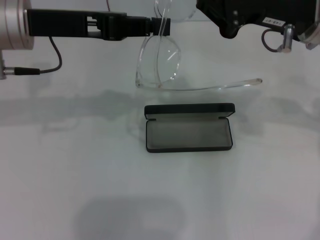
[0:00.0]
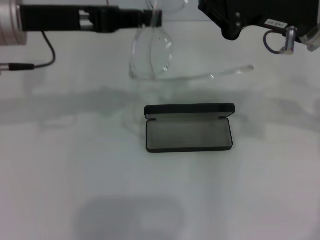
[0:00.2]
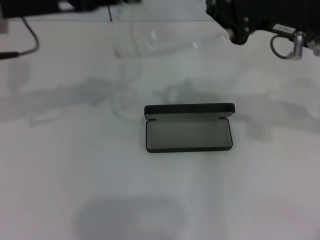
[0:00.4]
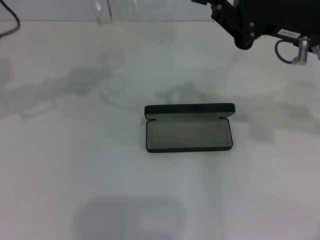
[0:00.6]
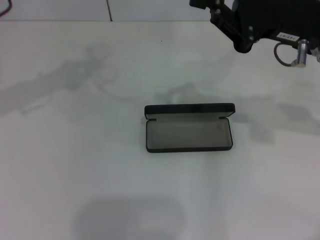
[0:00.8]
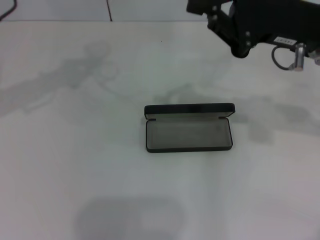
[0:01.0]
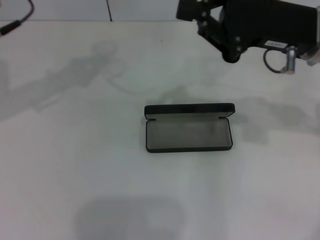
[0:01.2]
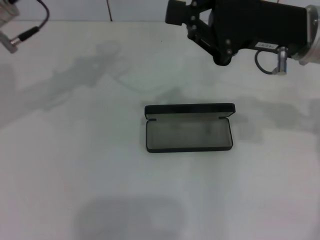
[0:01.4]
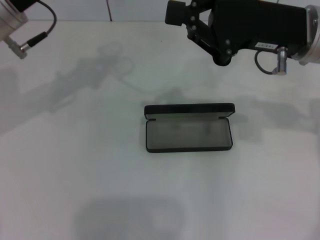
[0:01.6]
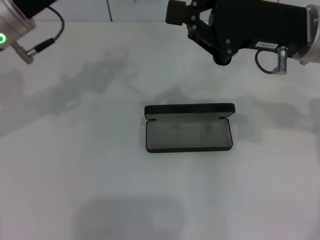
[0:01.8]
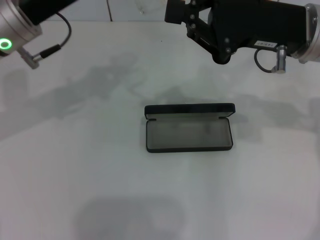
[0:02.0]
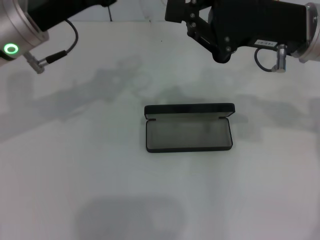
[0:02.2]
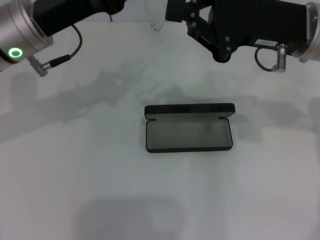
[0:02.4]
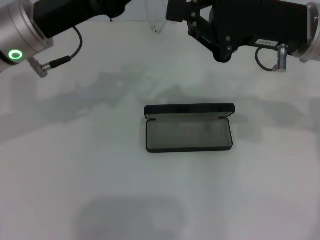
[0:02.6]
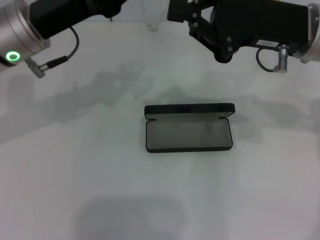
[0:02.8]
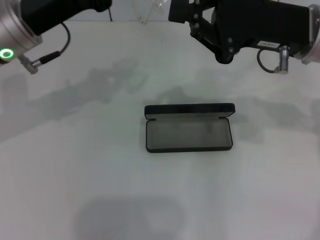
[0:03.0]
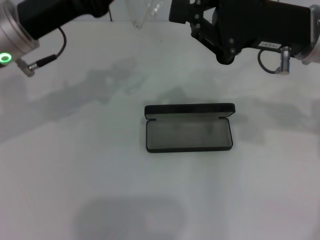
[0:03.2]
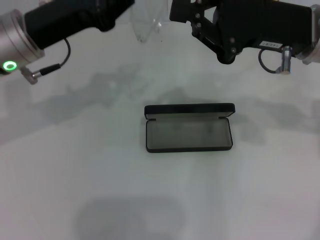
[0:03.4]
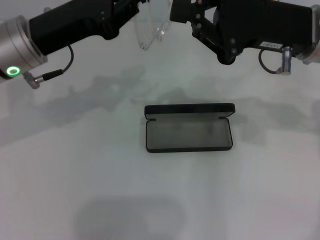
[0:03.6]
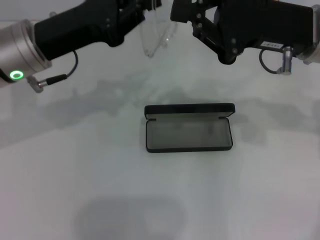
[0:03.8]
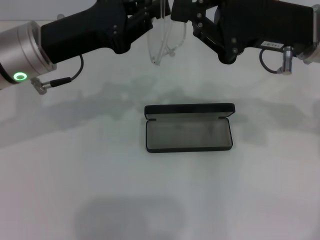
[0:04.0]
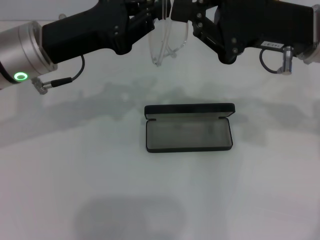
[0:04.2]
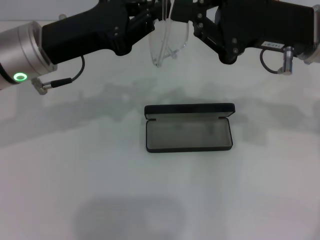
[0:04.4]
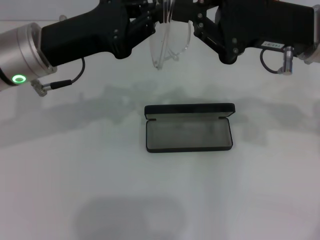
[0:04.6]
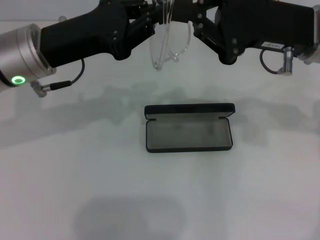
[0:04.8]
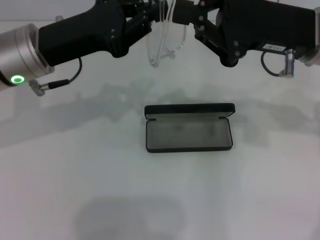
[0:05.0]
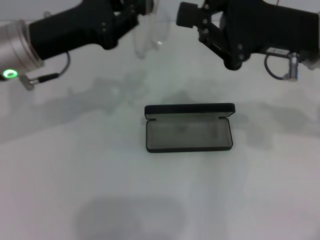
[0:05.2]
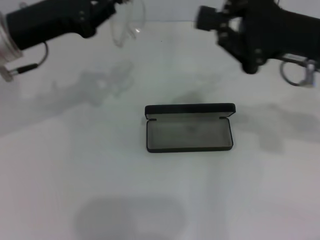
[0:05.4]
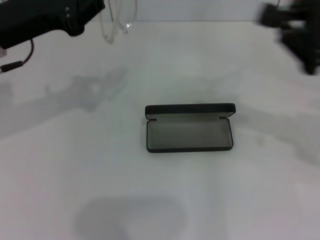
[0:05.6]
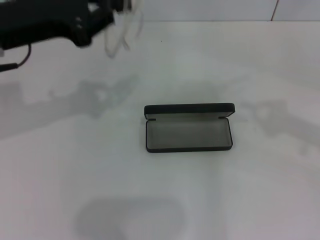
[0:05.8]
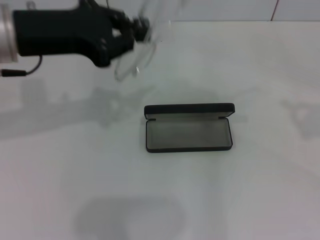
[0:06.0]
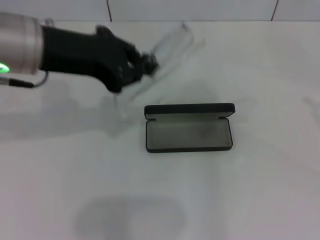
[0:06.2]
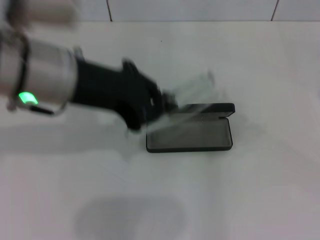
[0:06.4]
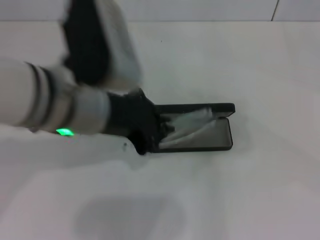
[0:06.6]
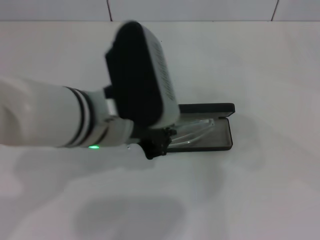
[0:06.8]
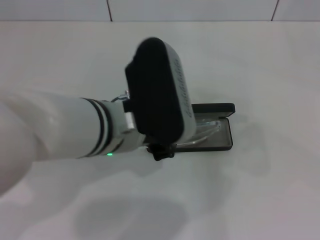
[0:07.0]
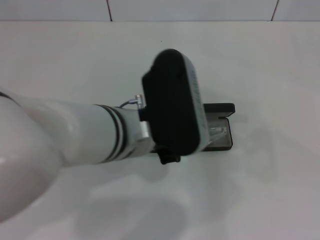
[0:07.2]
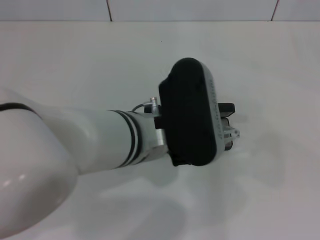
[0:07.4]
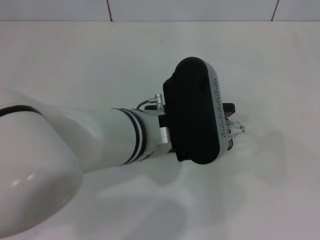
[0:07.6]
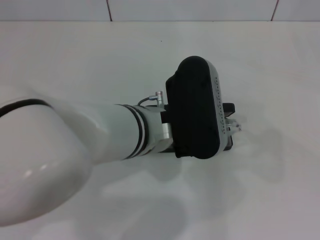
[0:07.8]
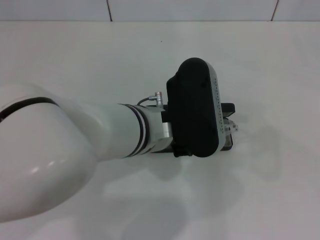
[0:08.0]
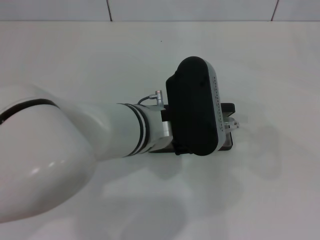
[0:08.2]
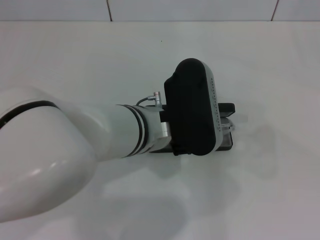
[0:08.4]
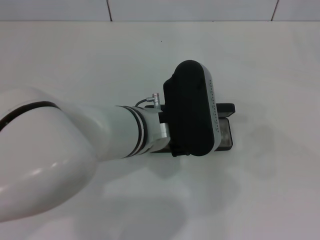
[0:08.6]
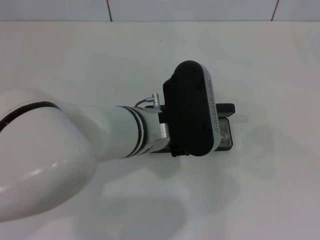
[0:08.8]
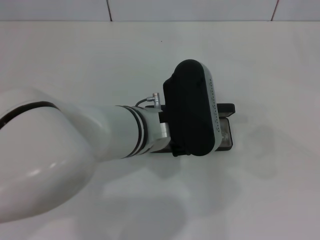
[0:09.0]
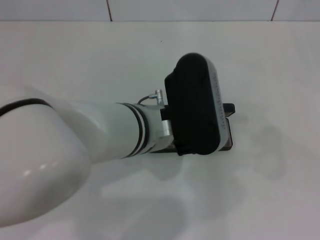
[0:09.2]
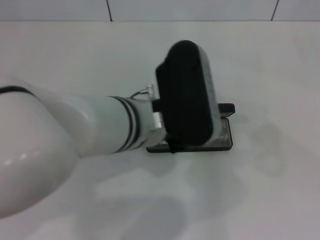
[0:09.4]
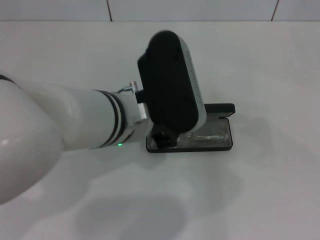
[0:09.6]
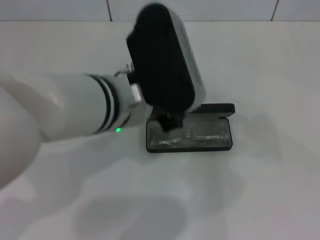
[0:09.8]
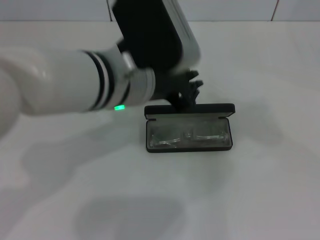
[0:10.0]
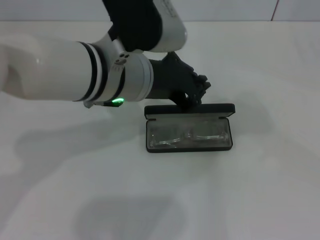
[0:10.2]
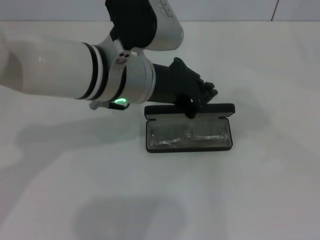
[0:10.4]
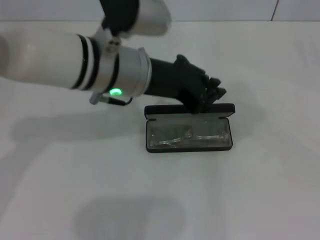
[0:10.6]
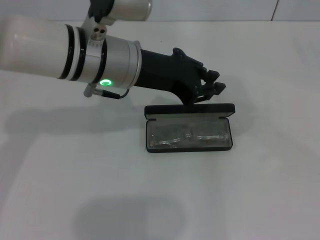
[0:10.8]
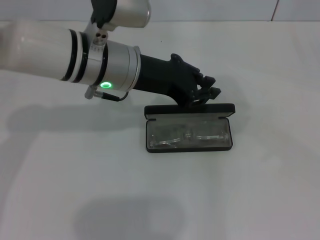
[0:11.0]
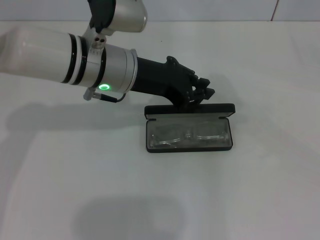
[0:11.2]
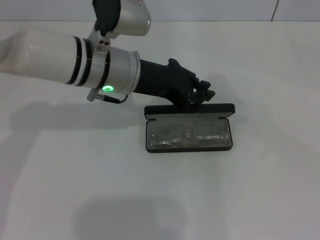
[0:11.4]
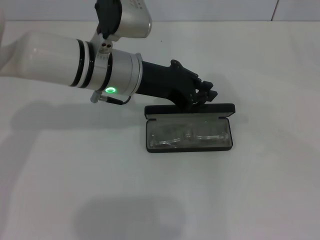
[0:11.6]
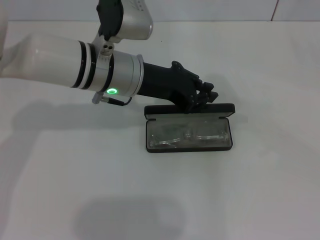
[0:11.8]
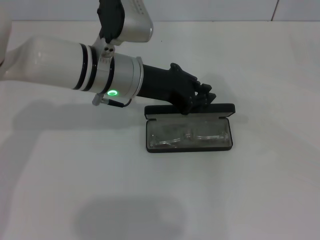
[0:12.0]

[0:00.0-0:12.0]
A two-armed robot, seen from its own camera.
Step, 0.0 to 5.0 s: Fold the frame with your right hand.
Step, 5.2 to 9.0 s: Put the glasses into the case with your left hand.
1.6 to 4.4 s: There are only small adjustments of the grippers.
4.4 to 6.0 s: The right gripper goes roughly 25 cm to the right and backward. The left gripper travels upward by about 5 cm.
6.0 to 7.6 s: The right gripper moves to the right, about 5 cm, while the left gripper travels to the right, downward and backward by about 20 cm.
7.6 to 9.0 s: There are only small adjustments of the grippers.
9.0 to 10.4 s: The left gripper moves about 5 cm.
10.4 to 12.0 s: The left gripper moves forward, approximately 5 cm.

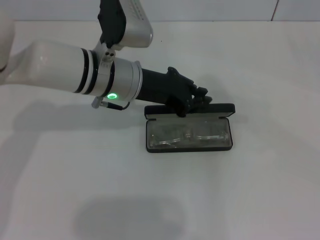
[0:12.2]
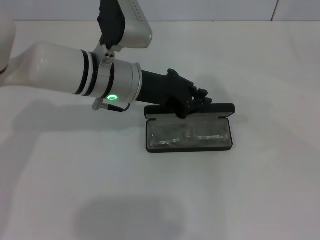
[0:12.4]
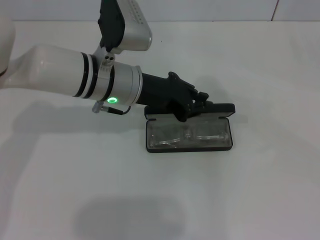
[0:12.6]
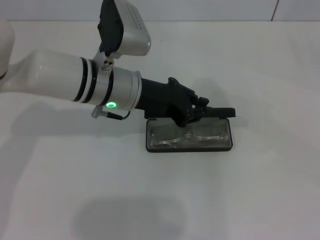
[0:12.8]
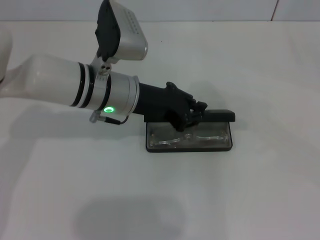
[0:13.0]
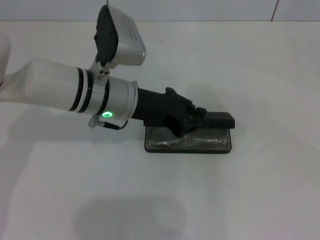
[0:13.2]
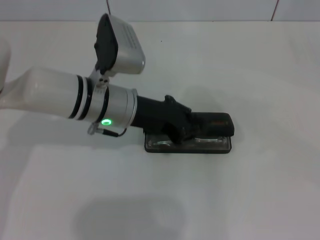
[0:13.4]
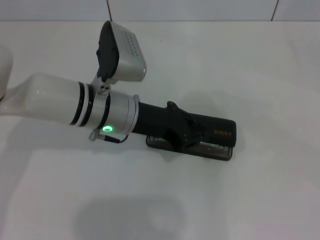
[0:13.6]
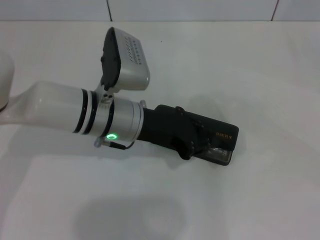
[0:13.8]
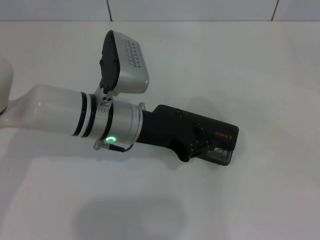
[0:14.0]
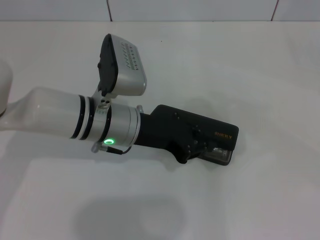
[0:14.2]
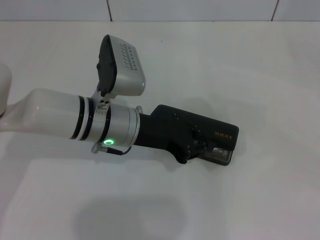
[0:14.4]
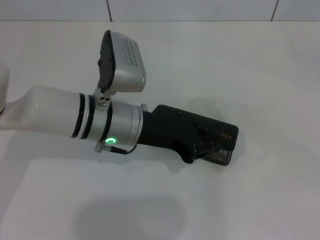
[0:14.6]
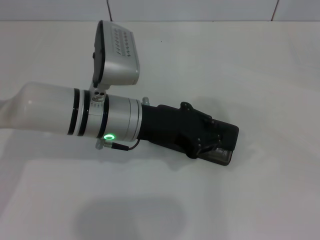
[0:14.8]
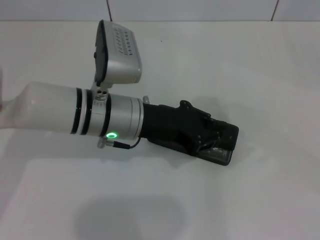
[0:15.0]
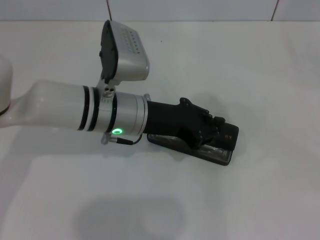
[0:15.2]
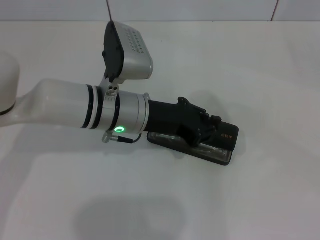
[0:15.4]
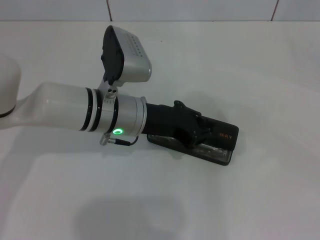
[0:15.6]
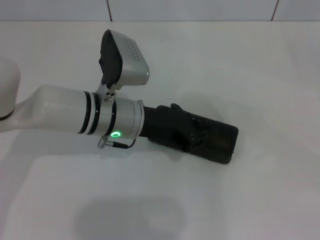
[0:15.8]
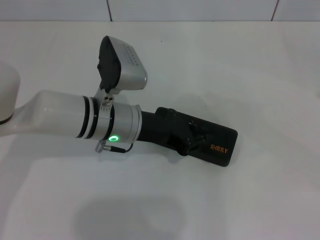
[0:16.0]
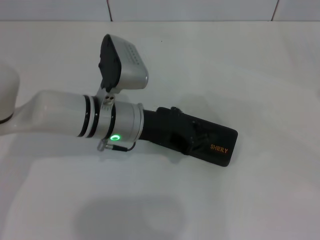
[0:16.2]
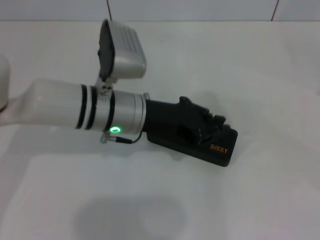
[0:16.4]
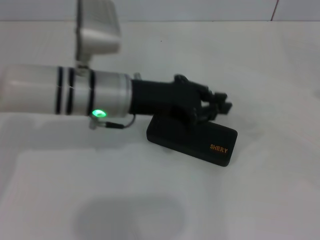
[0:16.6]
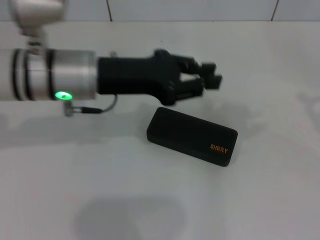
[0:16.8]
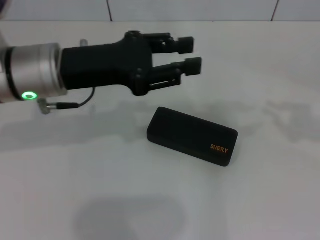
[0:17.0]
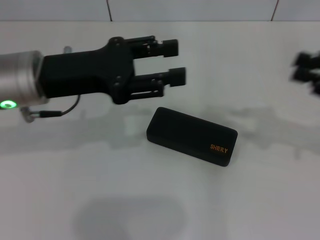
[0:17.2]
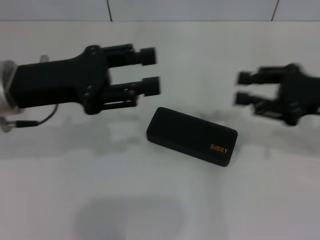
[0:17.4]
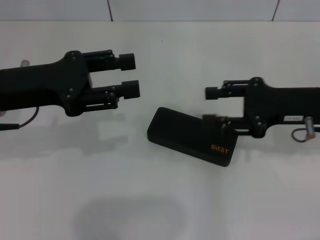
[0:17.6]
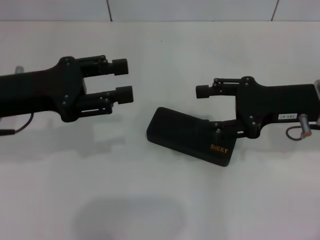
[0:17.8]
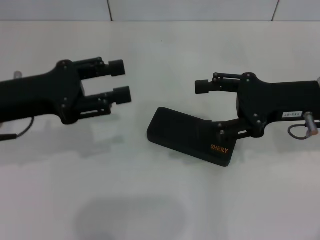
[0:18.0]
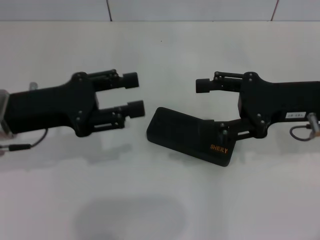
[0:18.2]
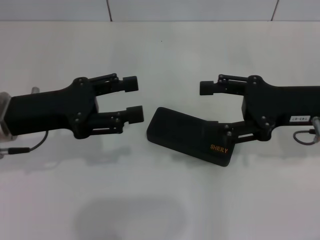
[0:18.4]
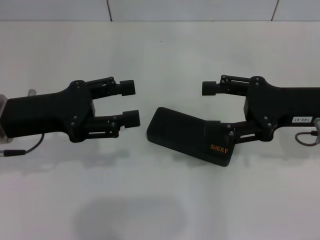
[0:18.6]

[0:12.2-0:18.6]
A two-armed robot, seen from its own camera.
Step, 12.2 to 16.0 s: Close the glasses case with your left hand.
12.2 to 13.8 s: The left gripper shifts by approximately 5 cm.
13.8 to 15.4 s: The grippers stay close to where they were, moving slightly.
15.4 to 17.0 s: The right gripper goes about 5 cm to the left, while the left gripper goes about 10 cm to the left and upward.
17.0 to 18.6 s: The right gripper heads to the left, covering approximately 15 cm, and opens. Meanwhile the left gripper is displaced to the left by about 5 cm, and opens its fingers.

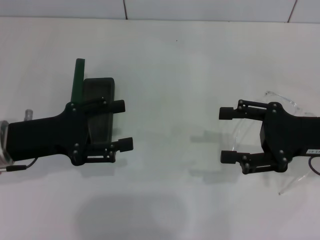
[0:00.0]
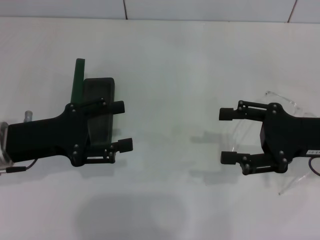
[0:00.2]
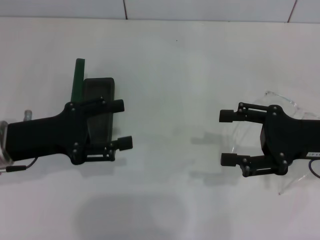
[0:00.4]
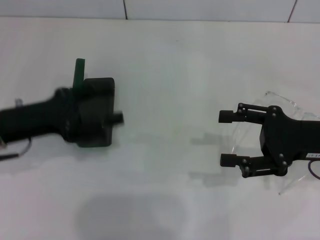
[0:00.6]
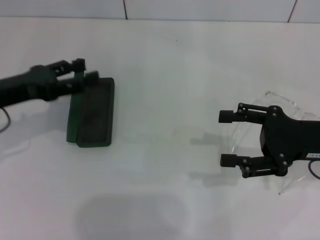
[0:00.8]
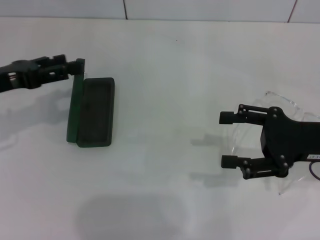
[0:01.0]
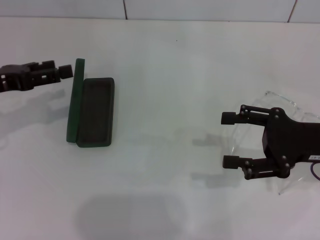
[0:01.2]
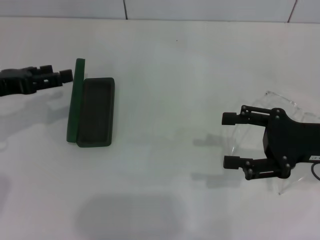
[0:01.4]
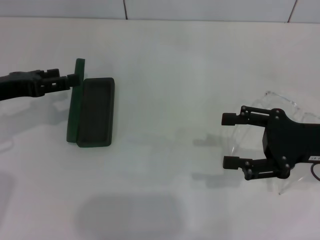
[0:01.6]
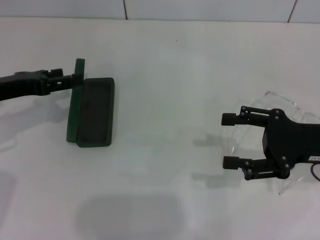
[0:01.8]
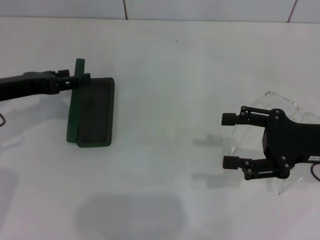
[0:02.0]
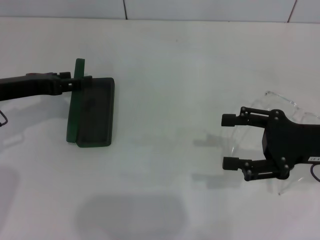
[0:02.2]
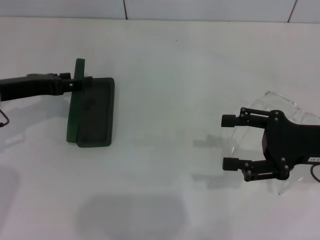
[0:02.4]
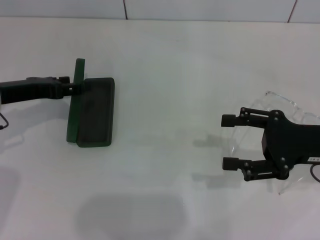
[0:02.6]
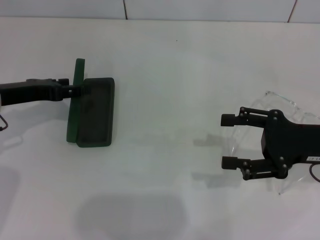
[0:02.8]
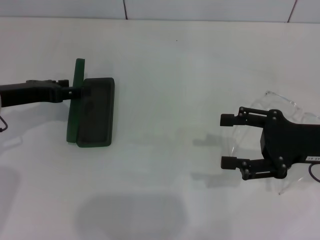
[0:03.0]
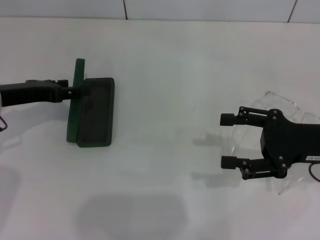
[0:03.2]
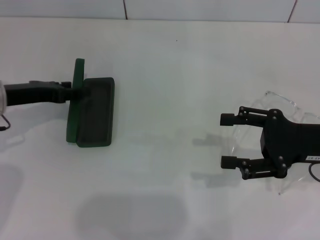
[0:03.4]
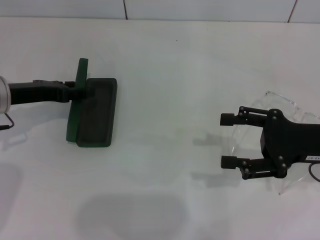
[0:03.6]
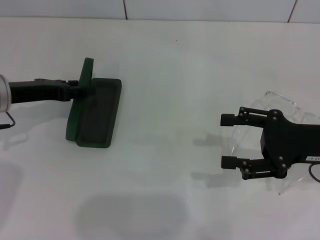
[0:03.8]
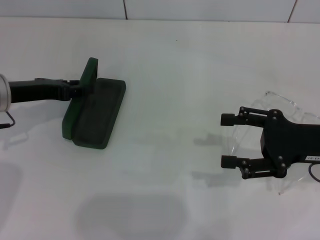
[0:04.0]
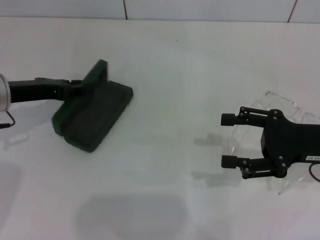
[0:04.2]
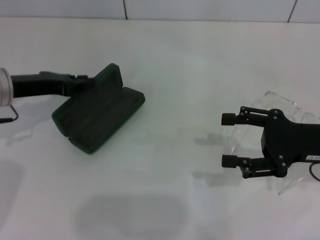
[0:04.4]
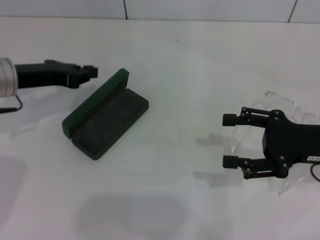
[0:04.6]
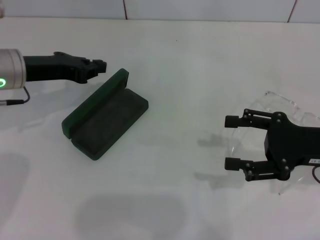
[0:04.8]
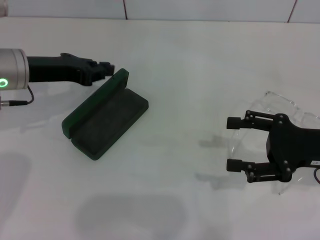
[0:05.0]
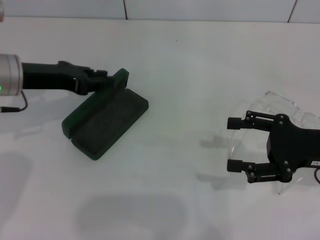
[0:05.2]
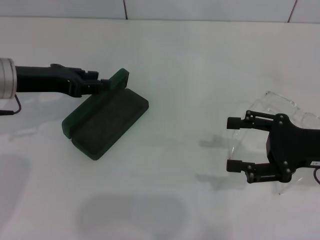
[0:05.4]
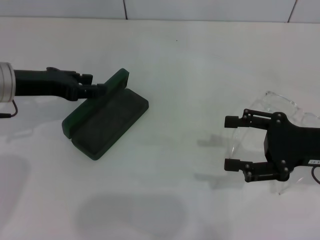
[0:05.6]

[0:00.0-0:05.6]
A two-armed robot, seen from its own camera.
0.0 to 1.4 s: The left gripper moves to the left, some 5 cm.
1.4 to 2.8 s: The left gripper shifts by approximately 5 cm.
2.8 to 4.2 s: The left gripper closes.
4.2 to 5.6 s: The left gripper closes and opens again.
